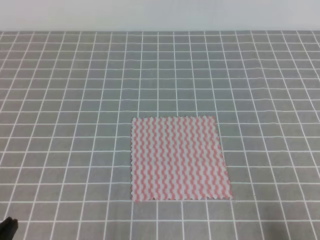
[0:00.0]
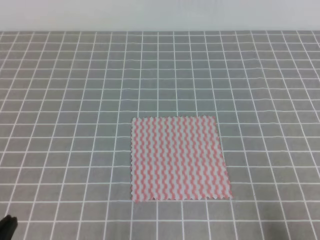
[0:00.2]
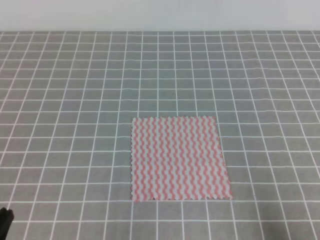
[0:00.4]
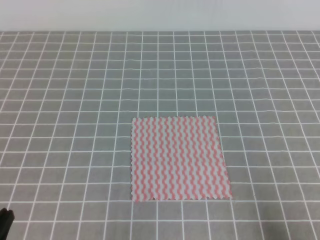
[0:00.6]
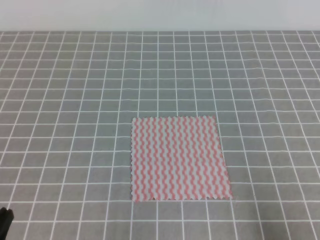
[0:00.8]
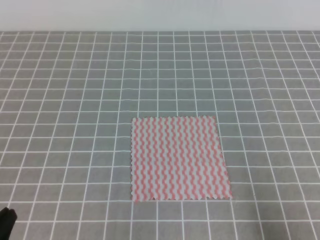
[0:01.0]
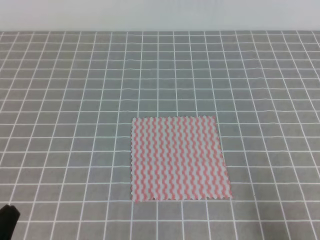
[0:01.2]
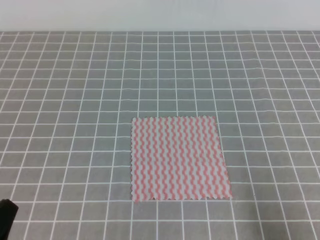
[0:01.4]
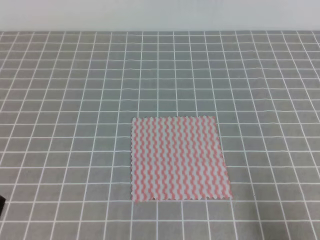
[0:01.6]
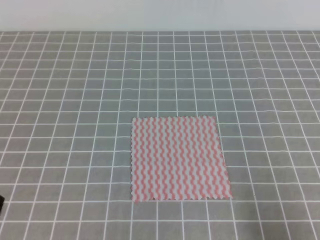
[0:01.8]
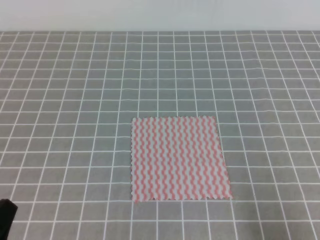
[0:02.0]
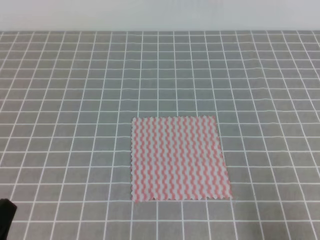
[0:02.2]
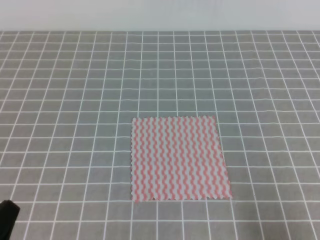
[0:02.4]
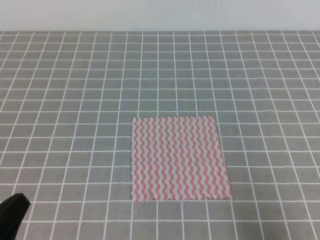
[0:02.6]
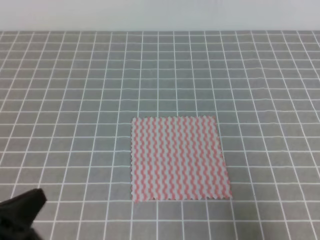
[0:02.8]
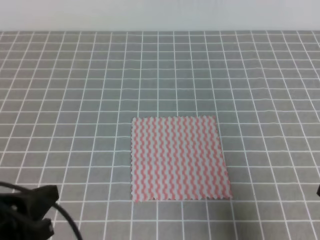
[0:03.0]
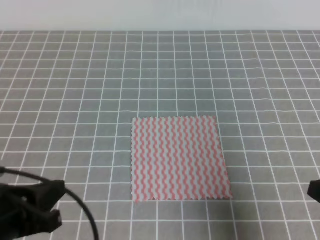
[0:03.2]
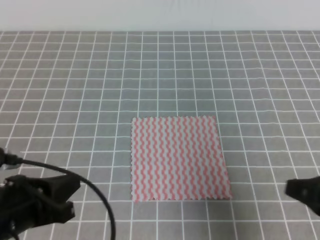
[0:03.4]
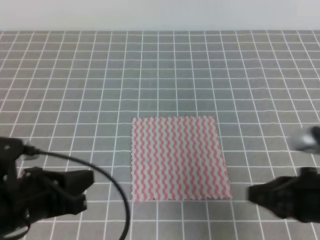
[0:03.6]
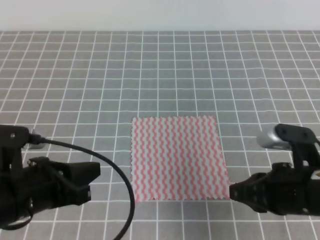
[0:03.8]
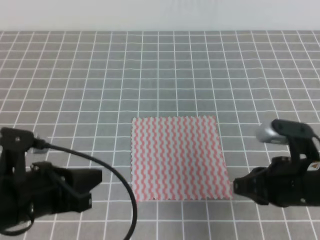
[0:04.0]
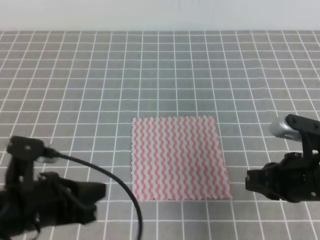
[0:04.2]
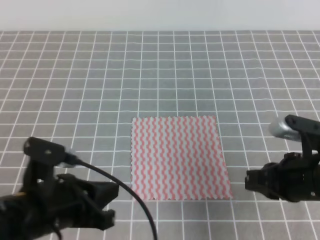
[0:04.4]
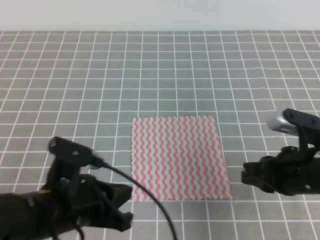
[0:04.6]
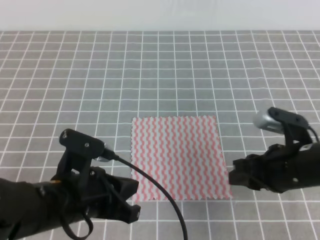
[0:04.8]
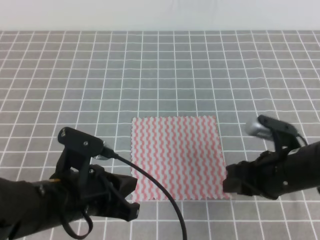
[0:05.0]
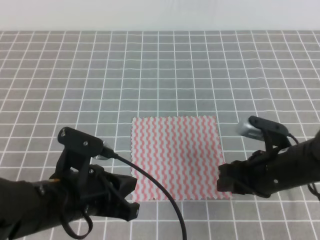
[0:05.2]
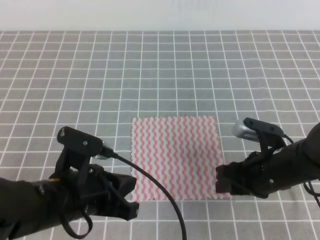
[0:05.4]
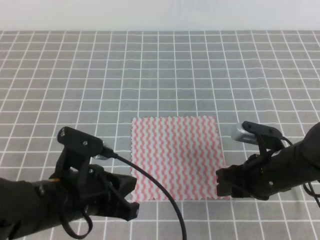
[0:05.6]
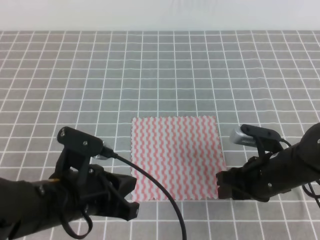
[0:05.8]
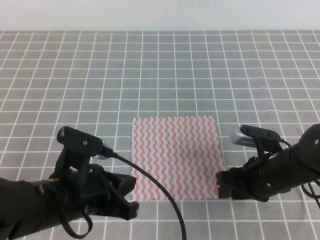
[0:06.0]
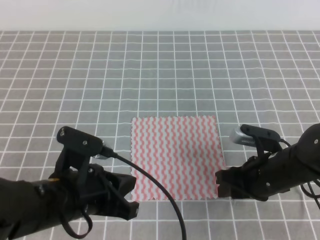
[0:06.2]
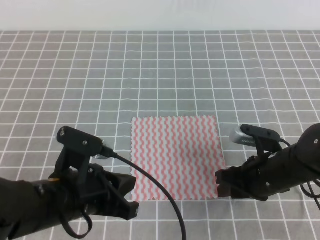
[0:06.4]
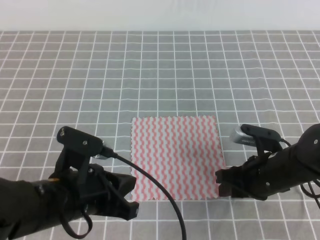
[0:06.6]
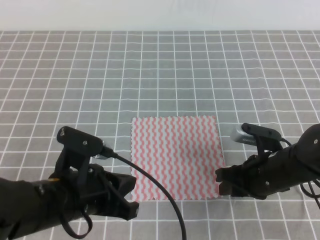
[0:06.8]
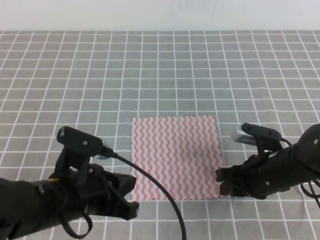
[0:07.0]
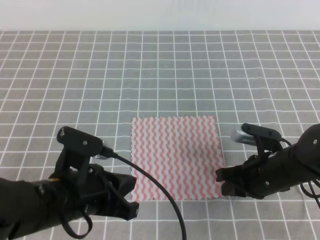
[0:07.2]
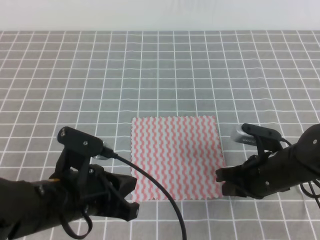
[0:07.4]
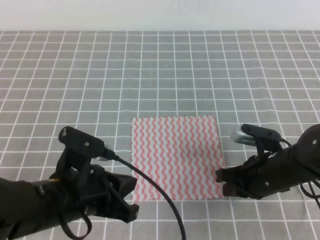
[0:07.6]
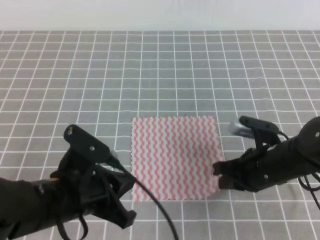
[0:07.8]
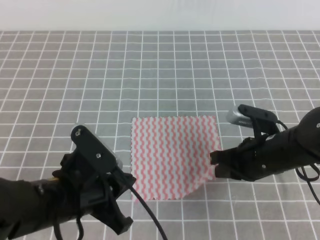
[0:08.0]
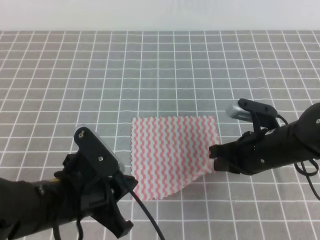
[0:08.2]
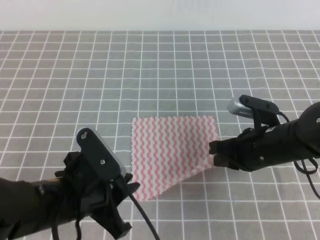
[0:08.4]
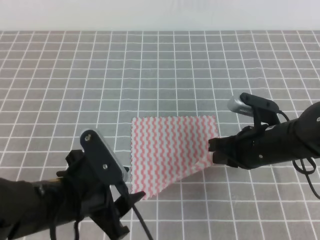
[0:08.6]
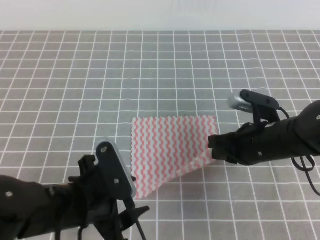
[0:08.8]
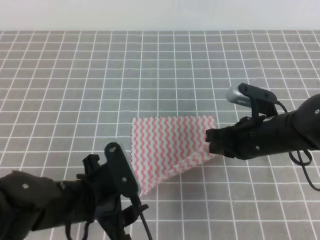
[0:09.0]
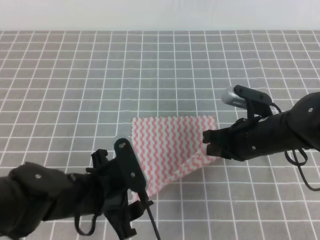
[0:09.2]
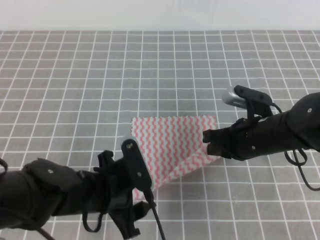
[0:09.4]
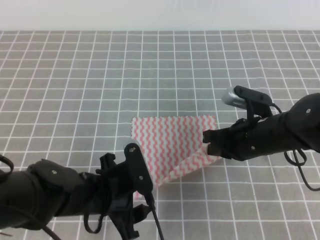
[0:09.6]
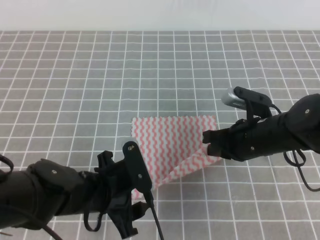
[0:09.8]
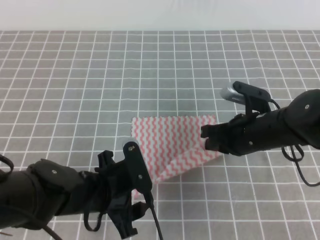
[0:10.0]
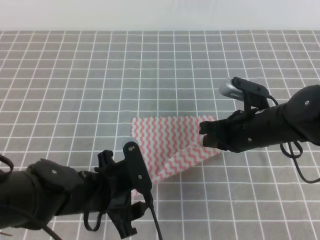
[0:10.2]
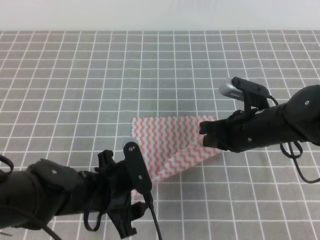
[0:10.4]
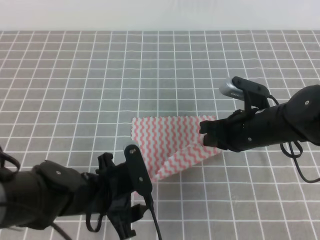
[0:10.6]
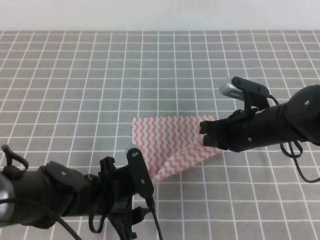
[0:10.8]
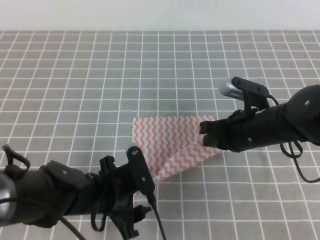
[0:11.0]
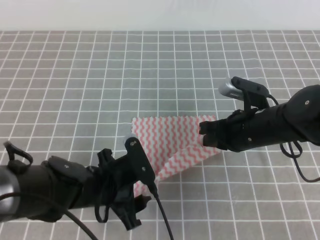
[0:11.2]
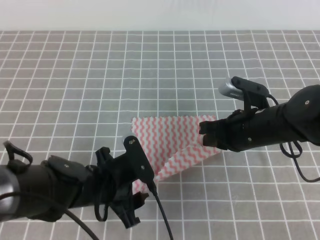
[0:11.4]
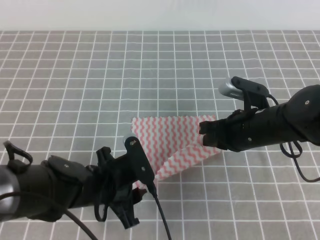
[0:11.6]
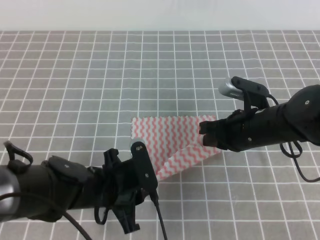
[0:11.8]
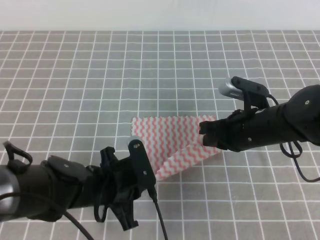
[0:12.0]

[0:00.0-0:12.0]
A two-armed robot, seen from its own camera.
0:01.6 to 0:03.0: The right gripper goes about 5 cm upward. Meanwhile the left gripper shifts by approximately 5 cm.
0:03.0 to 0:04.4: The left gripper is displaced to the right and forward by roughly 10 cm. Meanwhile the right gripper moves forward and to the left, approximately 15 cm.
0:04.4 to 0:06.0: The right gripper goes some 5 cm downward, and opens up.
0:06.0 to 0:07.6: The right gripper closes.
0:07.6 to 0:09.0: The right gripper shifts by approximately 5 cm, while the left gripper opens its fingers.
0:09.0 to 0:10.4: The grippers make only small movements.
0:10.4 to 0:12.0: The left gripper closes its fingers.

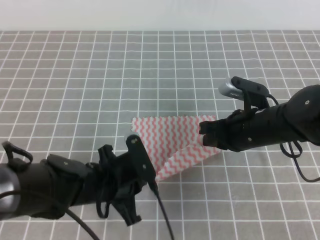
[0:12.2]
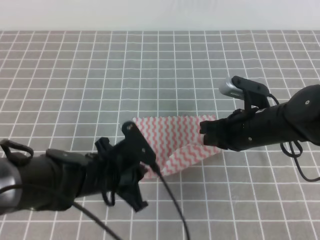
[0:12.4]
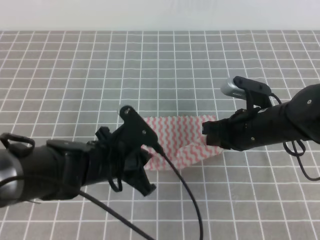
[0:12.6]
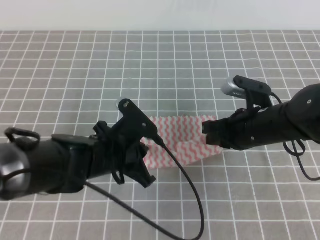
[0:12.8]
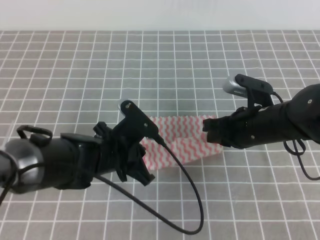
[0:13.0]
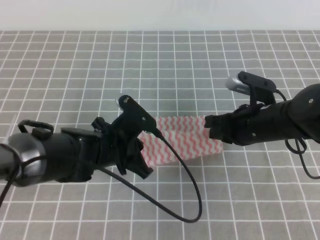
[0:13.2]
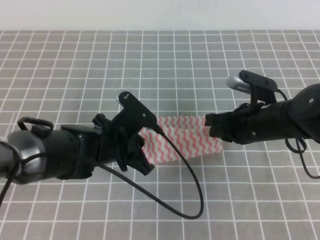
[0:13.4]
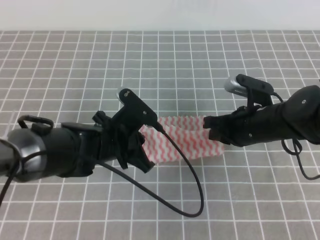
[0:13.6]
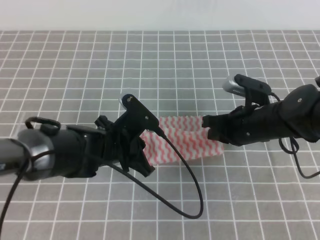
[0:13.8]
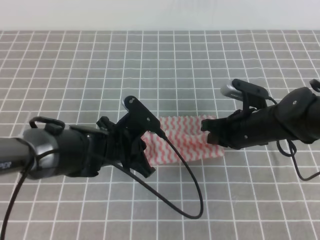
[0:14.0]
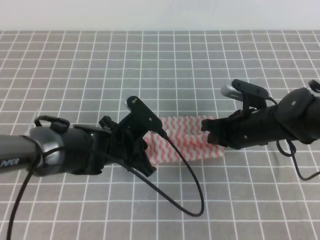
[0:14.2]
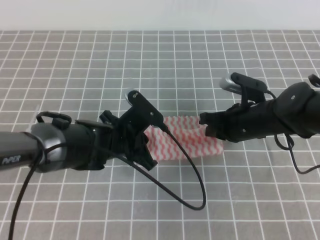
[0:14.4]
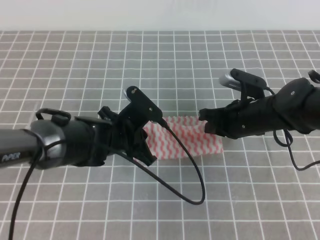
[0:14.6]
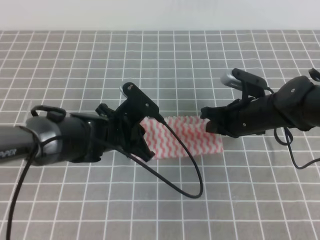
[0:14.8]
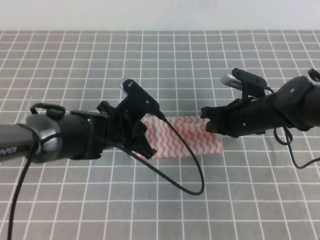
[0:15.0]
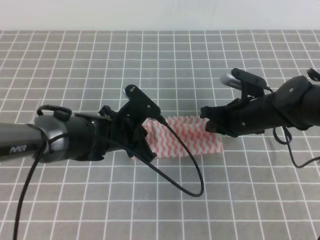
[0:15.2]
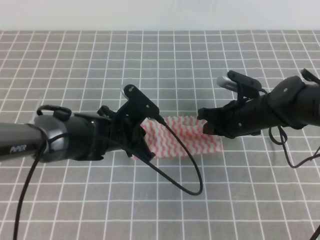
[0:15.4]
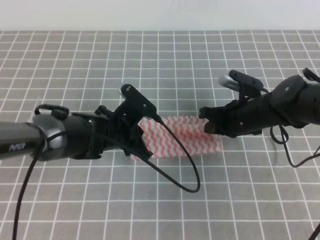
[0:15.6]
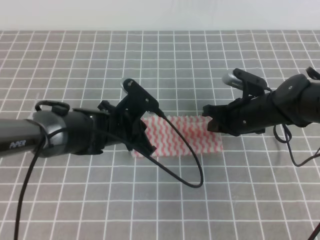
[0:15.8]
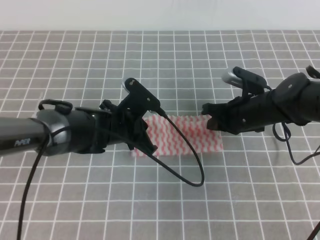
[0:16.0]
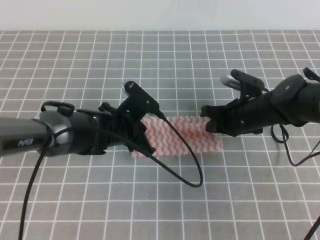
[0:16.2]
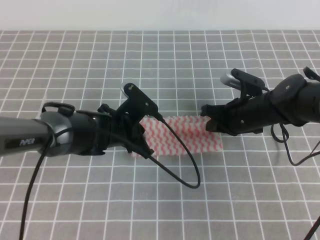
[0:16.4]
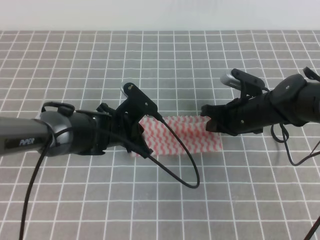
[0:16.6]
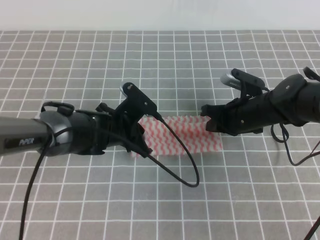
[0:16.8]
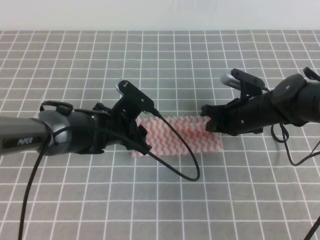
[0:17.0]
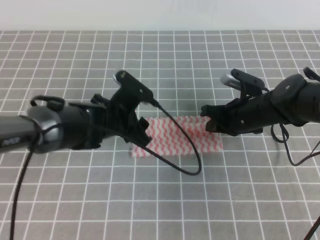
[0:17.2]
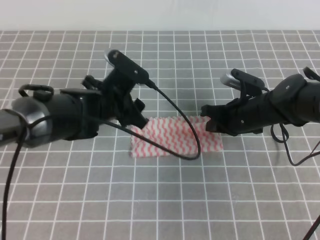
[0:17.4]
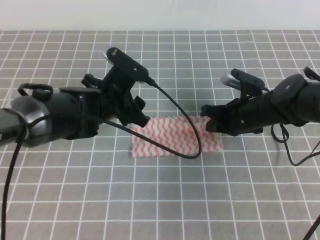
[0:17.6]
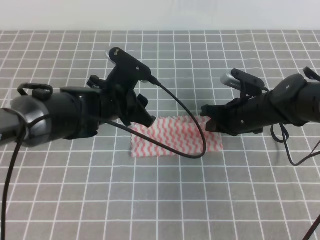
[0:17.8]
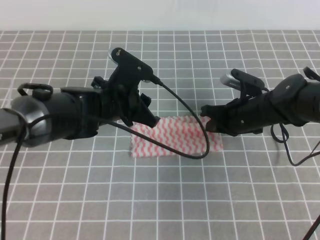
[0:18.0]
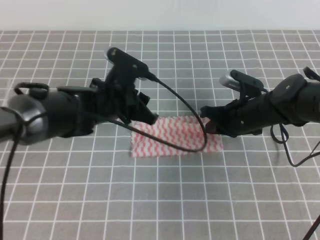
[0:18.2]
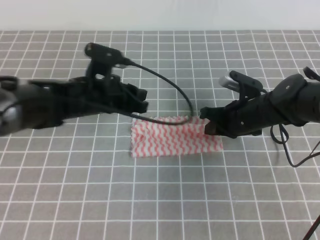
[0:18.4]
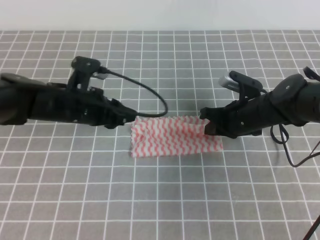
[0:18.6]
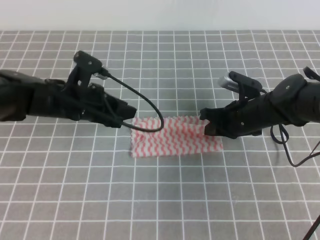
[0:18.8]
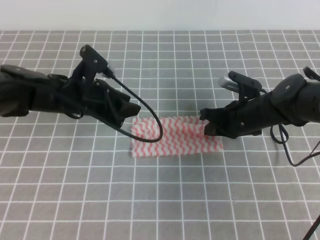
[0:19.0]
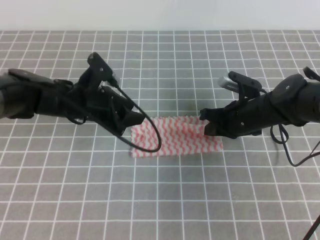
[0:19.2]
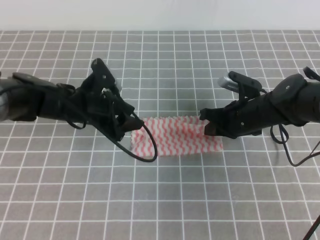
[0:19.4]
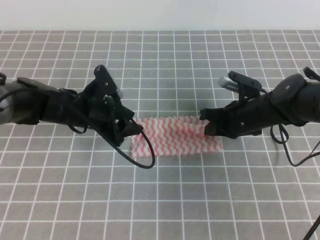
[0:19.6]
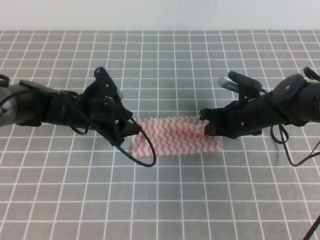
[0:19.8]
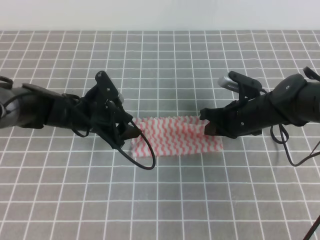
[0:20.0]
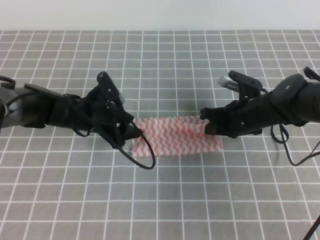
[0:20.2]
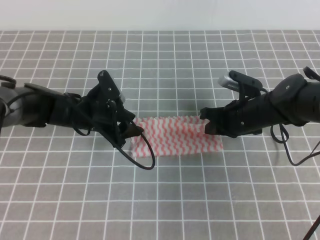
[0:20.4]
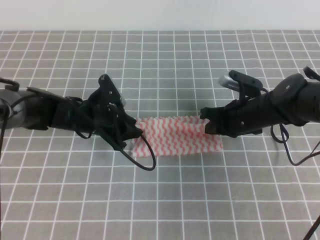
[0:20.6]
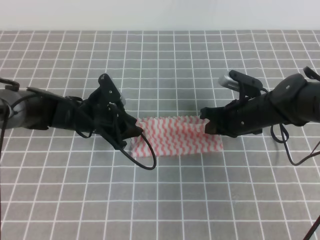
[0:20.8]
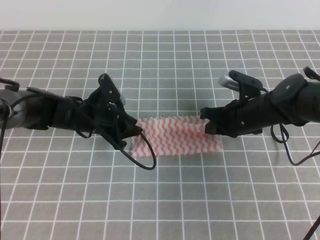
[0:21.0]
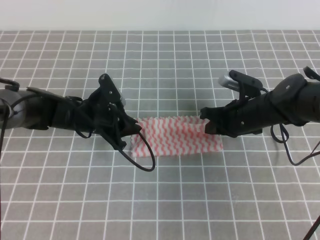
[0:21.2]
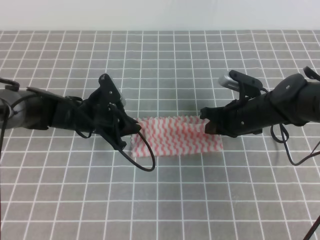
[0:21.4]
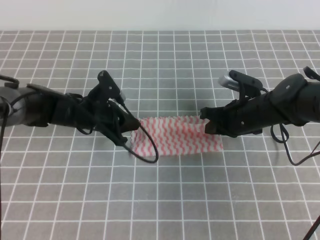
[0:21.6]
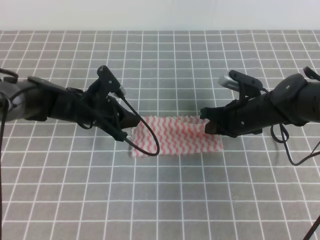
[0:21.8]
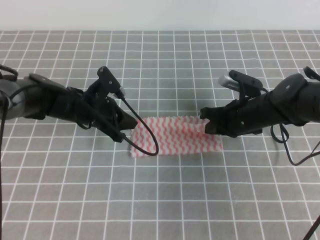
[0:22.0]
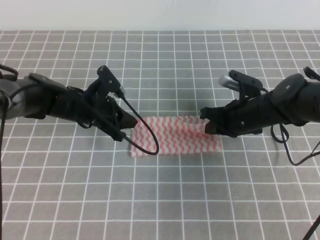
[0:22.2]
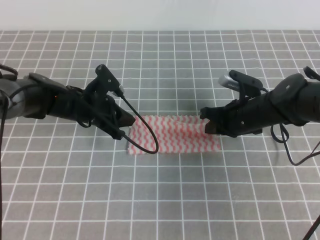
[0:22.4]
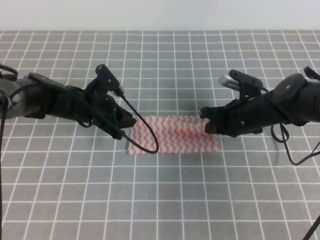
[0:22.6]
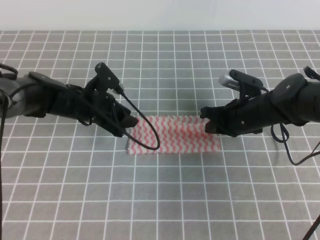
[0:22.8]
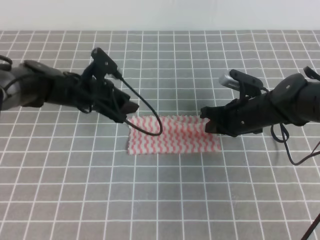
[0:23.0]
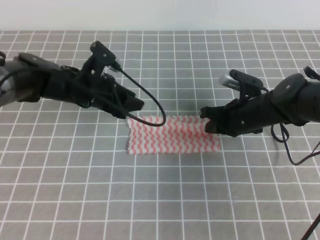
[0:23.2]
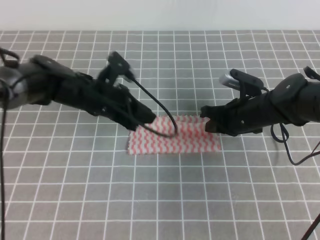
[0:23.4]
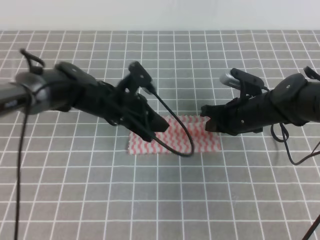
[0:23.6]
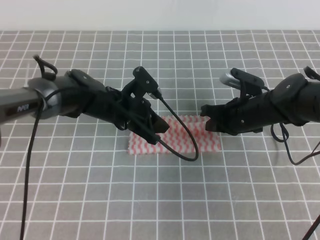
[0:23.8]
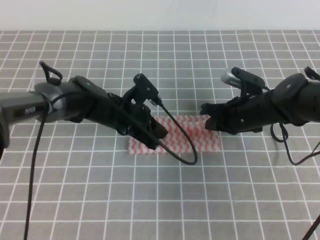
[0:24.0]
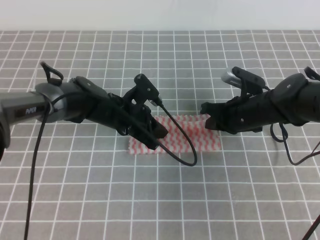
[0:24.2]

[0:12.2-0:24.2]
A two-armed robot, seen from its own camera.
0:12.2 to 0:13.8: The left gripper heads forward, covering roughly 5 cm.
0:13.8 to 0:16.6: The grippers make only small movements.
0:16.6 to 0:18.2: The left gripper goes about 5 cm upward, and opens.
0:18.2 to 0:19.8: The left gripper heads to the left and downward, covering roughly 10 cm.
0:19.8 to 0:21.2: The left gripper closes its fingers.
0:21.2 to 0:22.6: The grippers make only small movements.
0:22.6 to 0:24.2: The left gripper travels to the right by some 5 cm.
